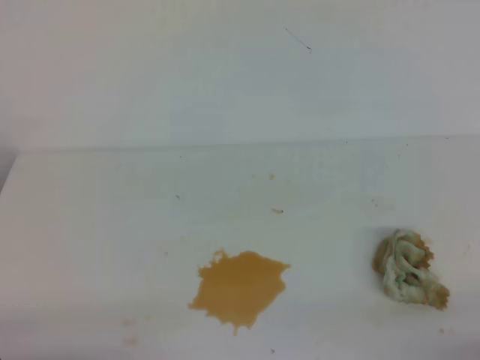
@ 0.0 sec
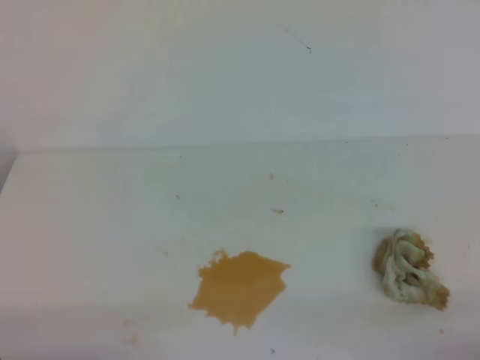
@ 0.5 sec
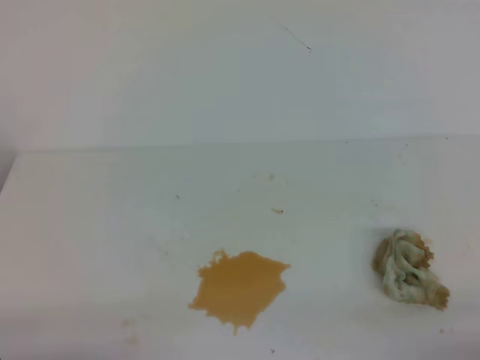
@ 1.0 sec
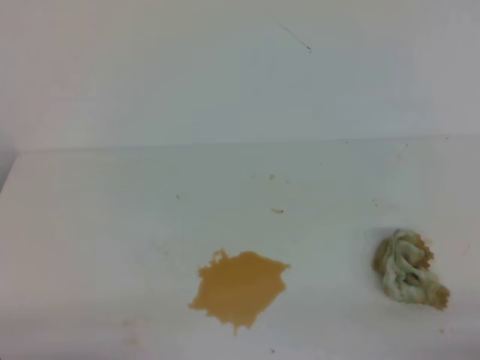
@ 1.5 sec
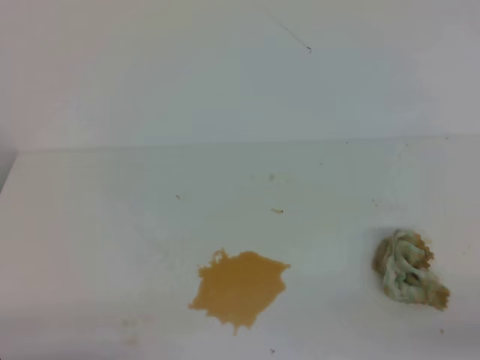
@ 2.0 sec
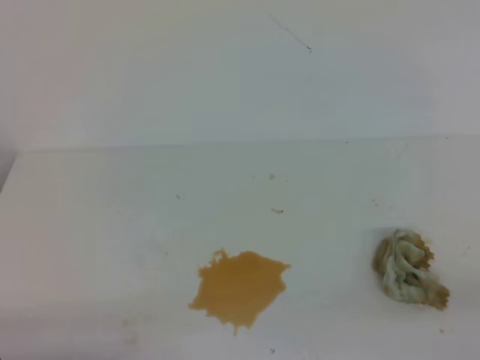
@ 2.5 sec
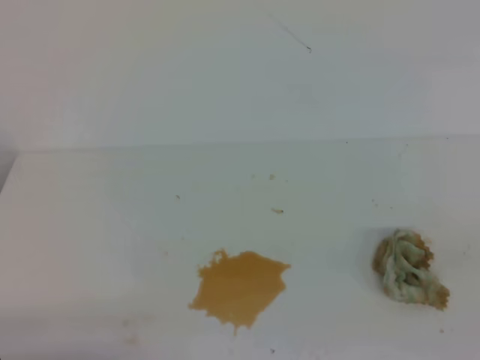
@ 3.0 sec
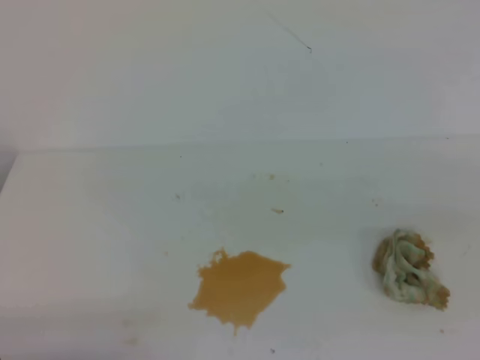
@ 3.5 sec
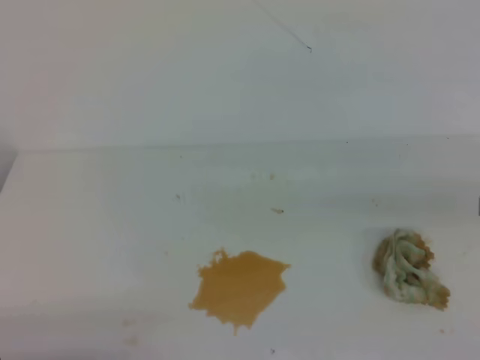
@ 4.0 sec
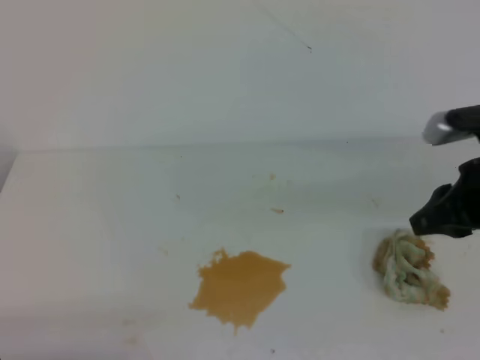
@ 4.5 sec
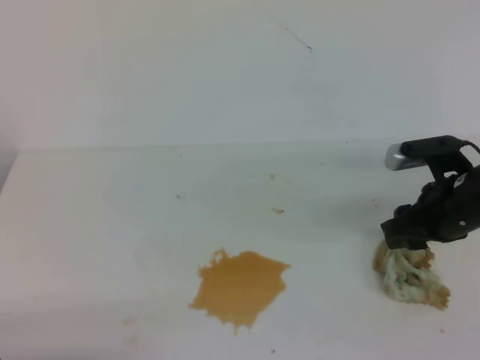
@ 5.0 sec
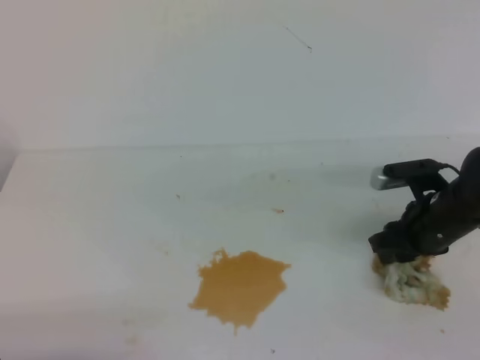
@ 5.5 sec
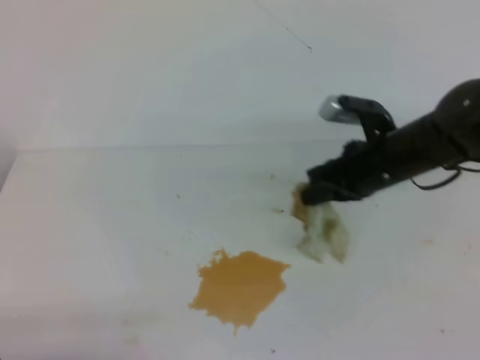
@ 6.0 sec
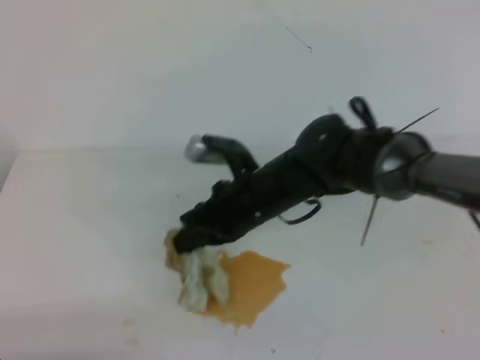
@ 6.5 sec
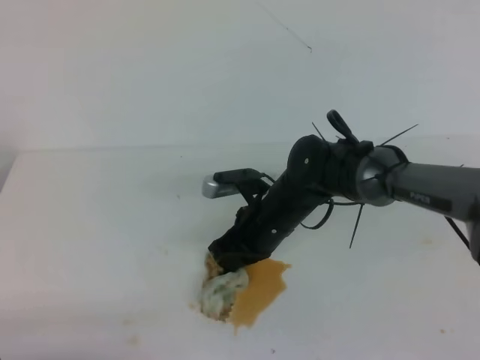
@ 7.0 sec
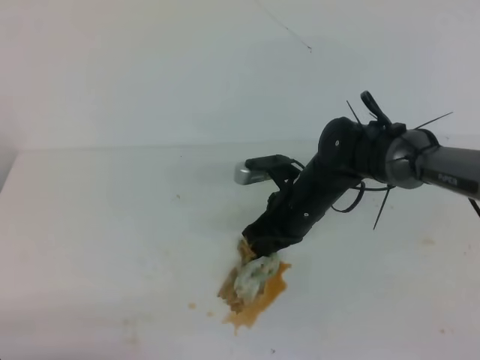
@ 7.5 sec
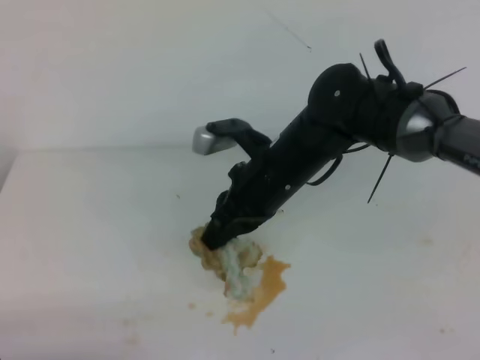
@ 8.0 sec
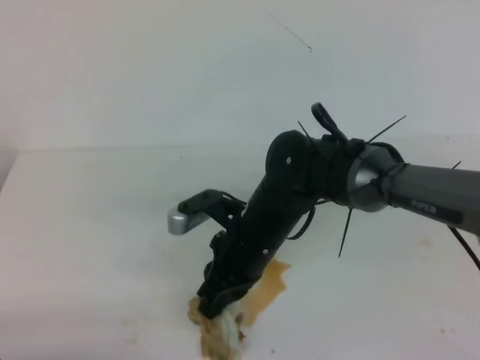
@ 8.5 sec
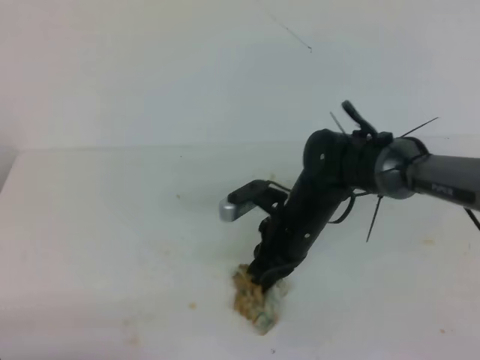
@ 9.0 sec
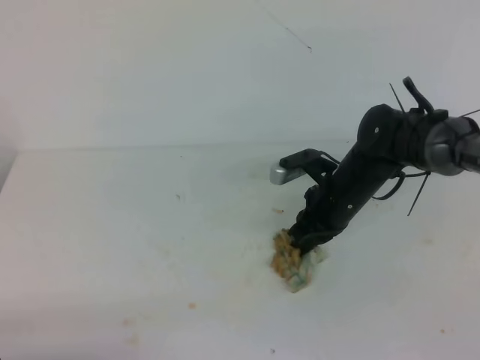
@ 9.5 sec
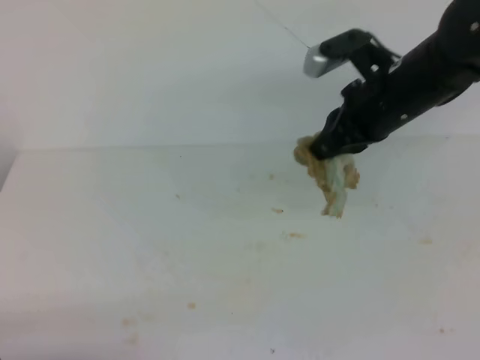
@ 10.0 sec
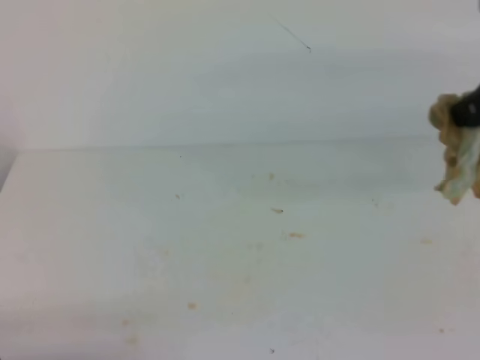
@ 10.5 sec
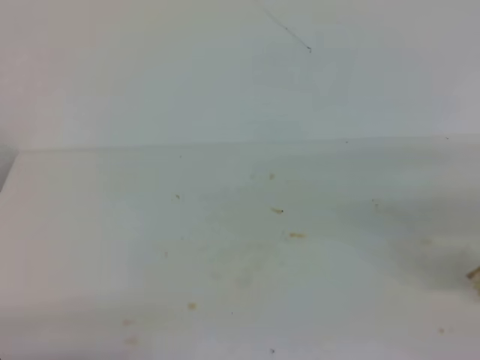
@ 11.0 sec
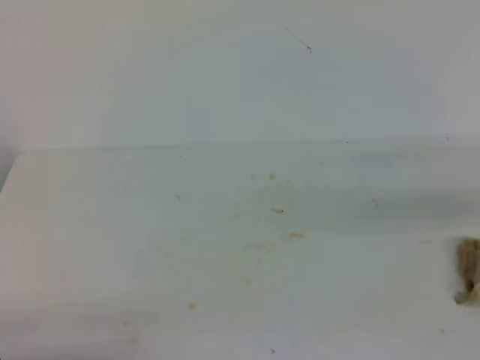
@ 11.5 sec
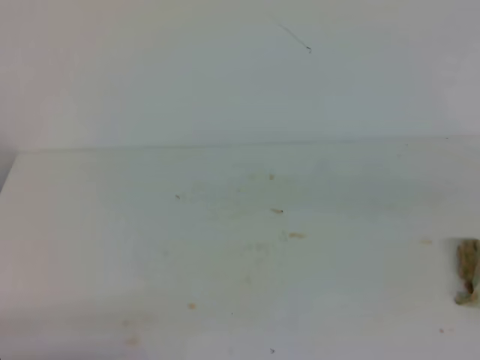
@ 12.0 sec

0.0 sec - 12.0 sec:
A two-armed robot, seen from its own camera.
4.0 sec - 6.0 sec: The right gripper travels forward, to the left and downward by roughly 25 cm, and opens and closes again.
6.0 sec - 8.0 sec: The right gripper heads to the left, covering about 15 cm.
8.0 sec - 10.0 sec: The right gripper goes some 15 cm to the right and upward.
10.0 sec - 12.0 sec: The right gripper shifts approximately 30 cm backward and to the right, and opens, then closes again.
